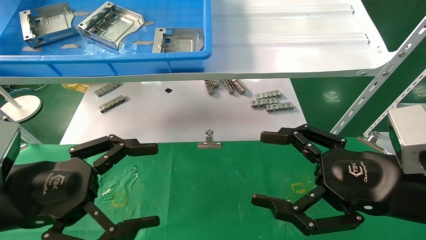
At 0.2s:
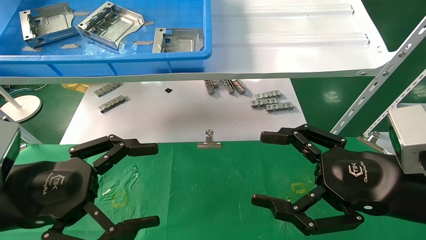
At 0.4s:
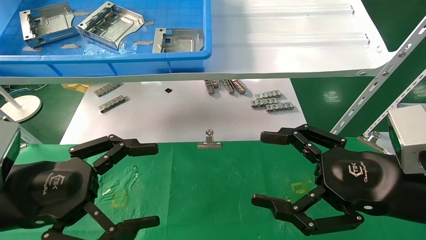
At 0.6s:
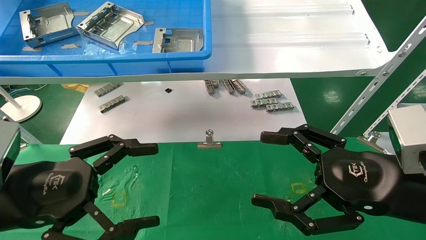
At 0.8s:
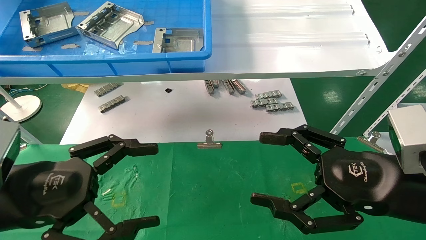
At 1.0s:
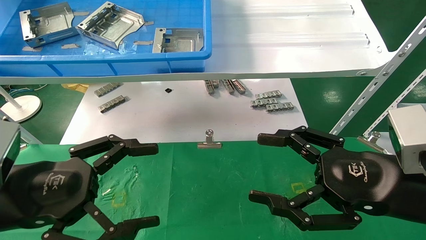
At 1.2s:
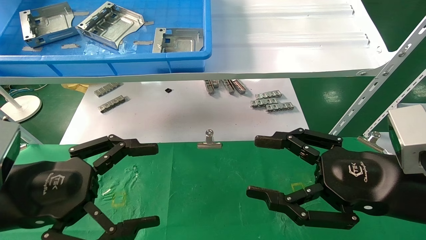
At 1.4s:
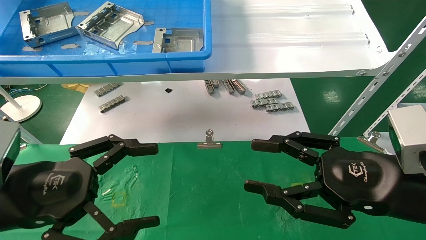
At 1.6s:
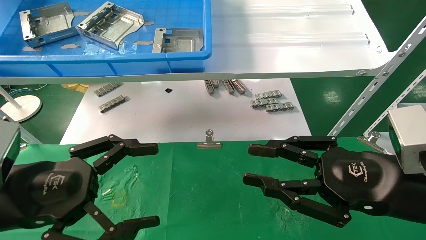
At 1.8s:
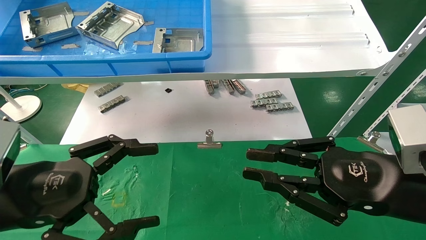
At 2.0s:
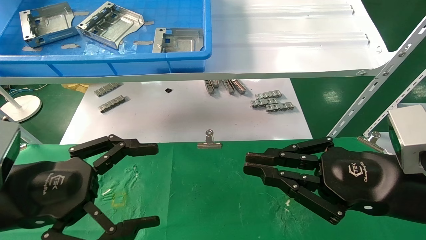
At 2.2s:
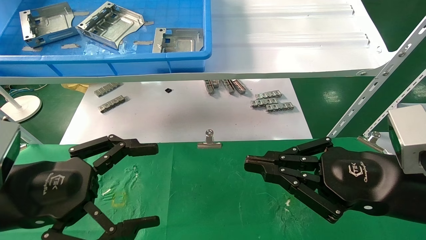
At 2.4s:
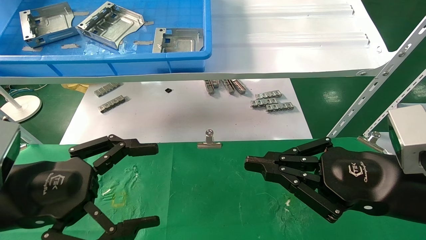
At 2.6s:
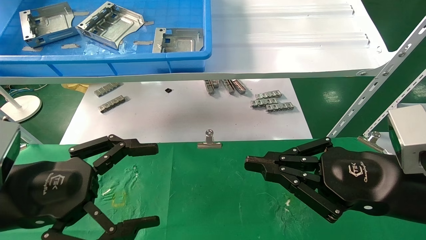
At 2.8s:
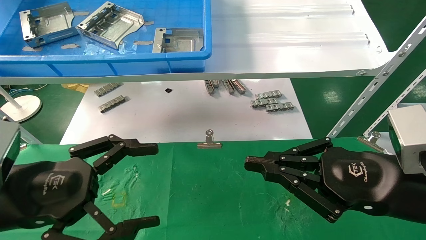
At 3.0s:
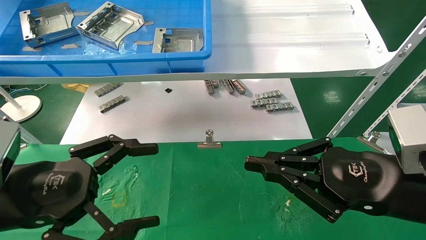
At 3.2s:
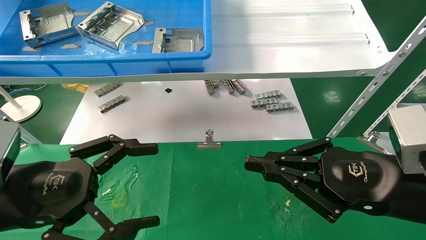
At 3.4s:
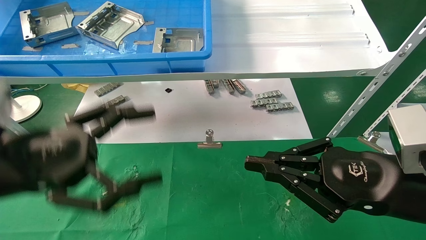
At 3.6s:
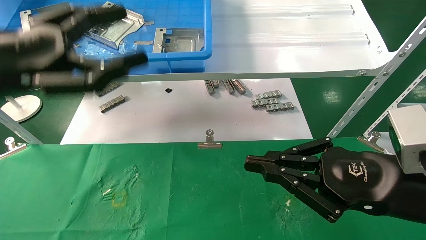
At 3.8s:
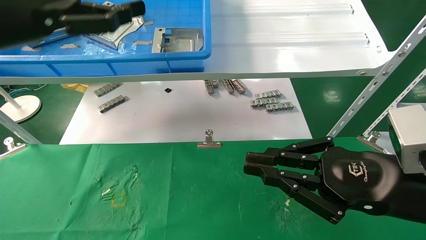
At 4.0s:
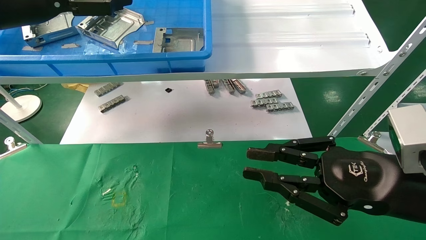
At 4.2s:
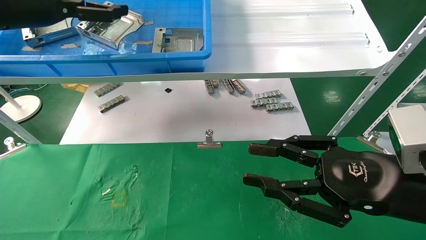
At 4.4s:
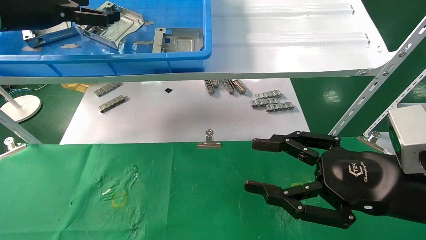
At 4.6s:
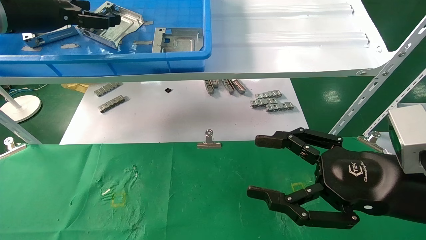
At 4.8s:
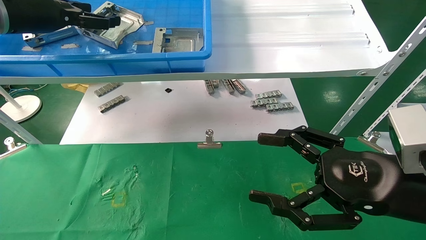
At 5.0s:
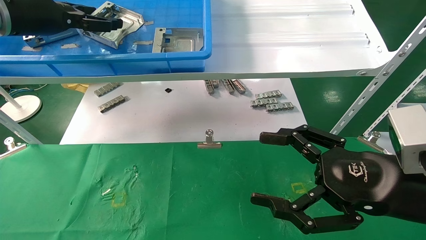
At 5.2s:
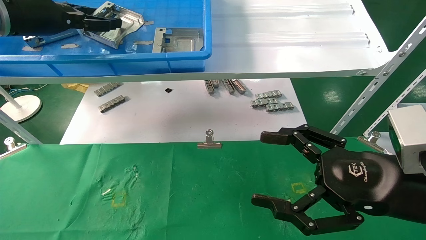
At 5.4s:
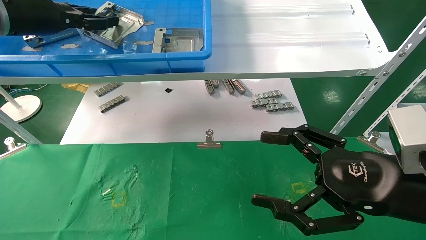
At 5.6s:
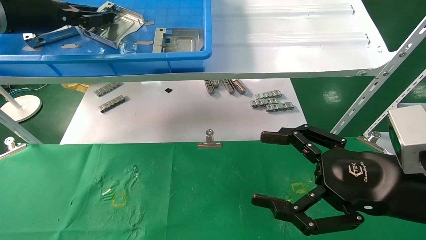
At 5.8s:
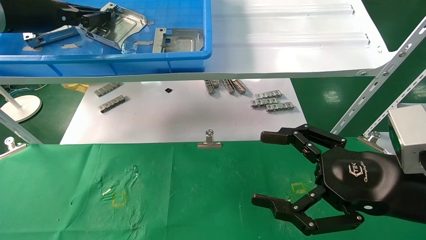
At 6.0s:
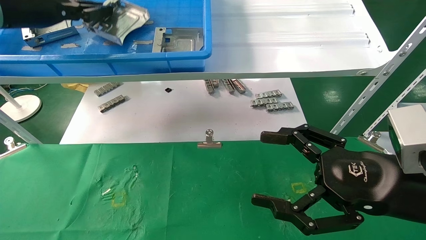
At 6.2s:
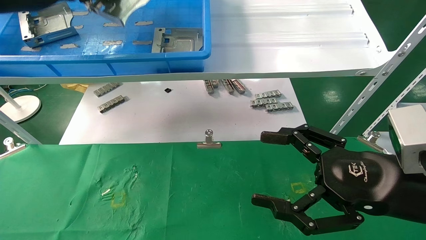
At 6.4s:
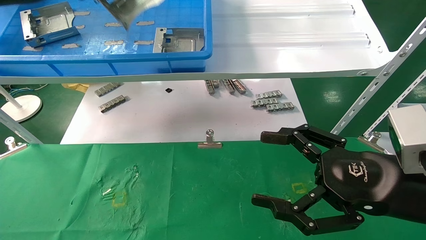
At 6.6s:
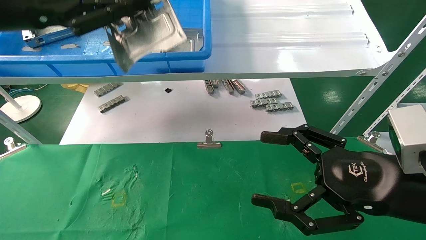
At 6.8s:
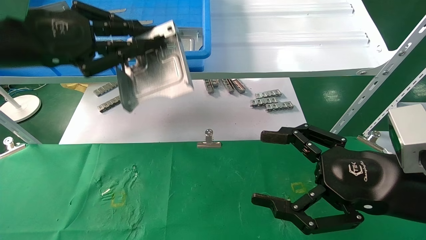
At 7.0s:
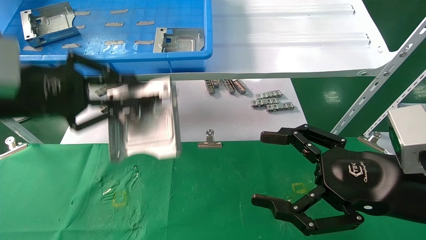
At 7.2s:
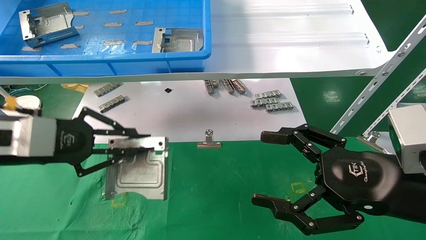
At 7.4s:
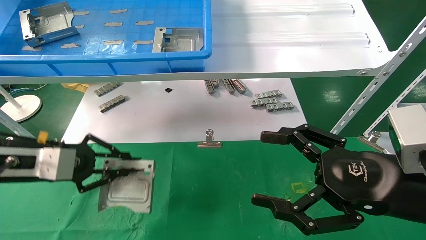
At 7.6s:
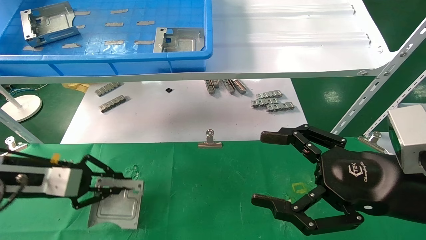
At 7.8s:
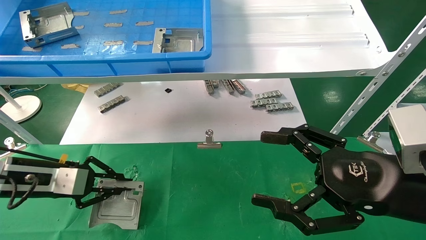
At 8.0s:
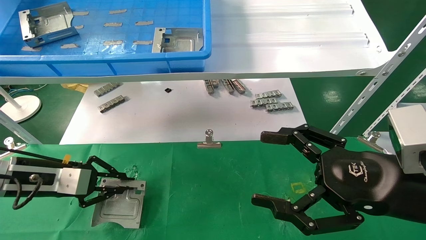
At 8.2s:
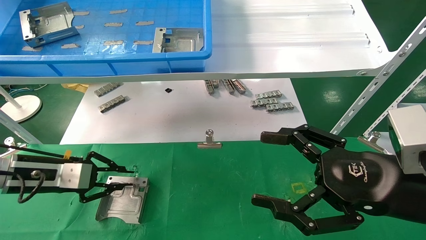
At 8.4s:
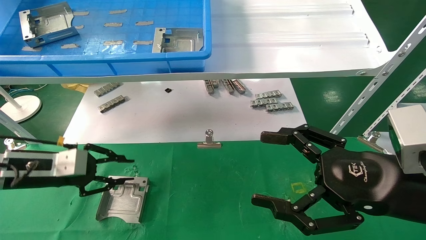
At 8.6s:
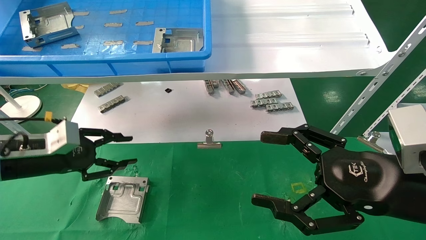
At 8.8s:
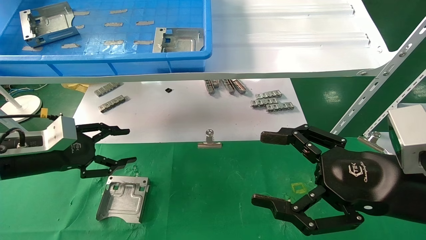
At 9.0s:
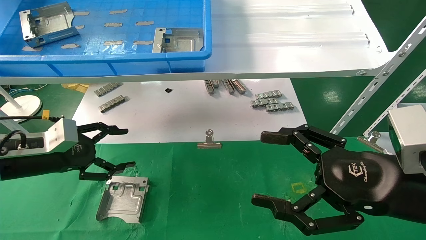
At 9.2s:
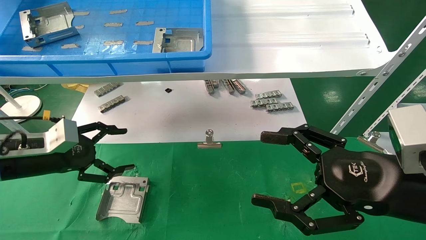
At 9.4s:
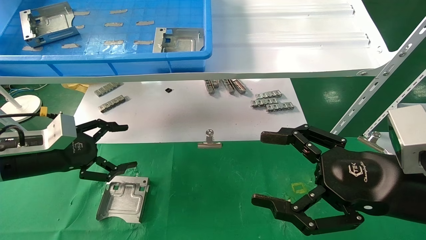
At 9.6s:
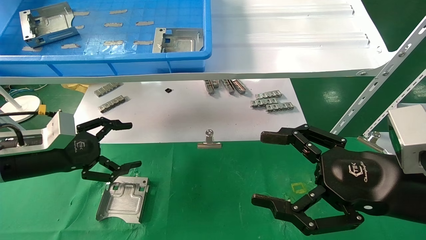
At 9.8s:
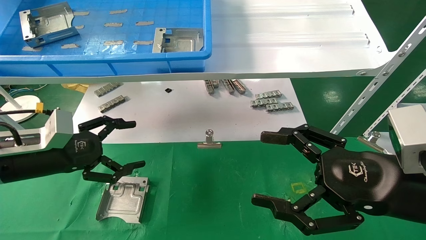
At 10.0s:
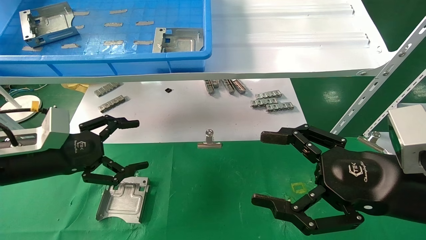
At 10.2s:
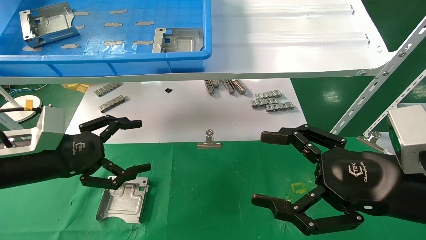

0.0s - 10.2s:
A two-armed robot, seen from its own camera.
Task of the whole recording: use the mechanical arm to pick up the parts and place them on the table.
Step, 3.6s - 6.0s: Pick up the hard drive bracket from the feeding area.
Step, 6.2s - 8.2s: Place the hard drive bracket into the box.
0.0s - 1.4s: The two grippers keep their place.
1.4s - 3.0s: The right gripper closes.
3.0s - 4.4s: The right gripper opens, while the left gripper heads upward and forward, covering about 30 cm.
4.4s - 5.8s: The right gripper opens its fingers; the left gripper closes up.
5.8s - 7.2s: The left gripper is displaced downward and backward by about 20 cm.
7.2s - 8.8s: The left gripper shifts approximately 10 cm downward and forward, and opens.
8.8s - 10.2s: The left gripper shifts by roughly 5 cm, and opens.

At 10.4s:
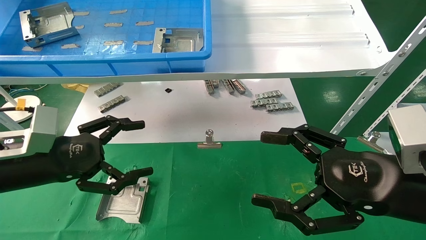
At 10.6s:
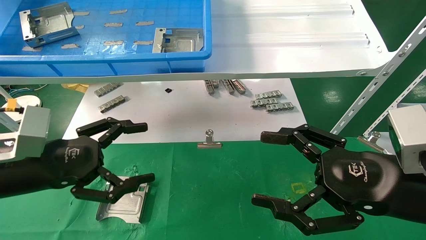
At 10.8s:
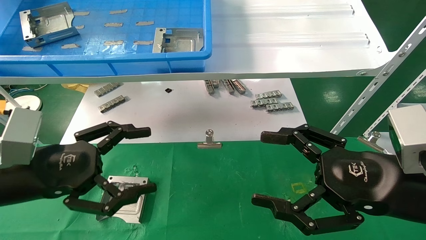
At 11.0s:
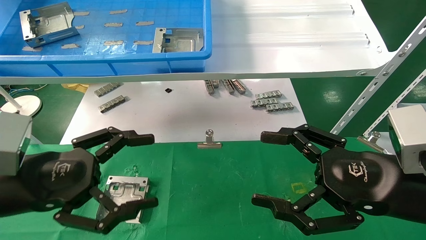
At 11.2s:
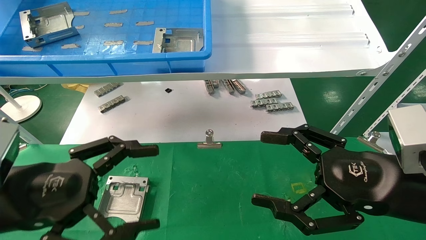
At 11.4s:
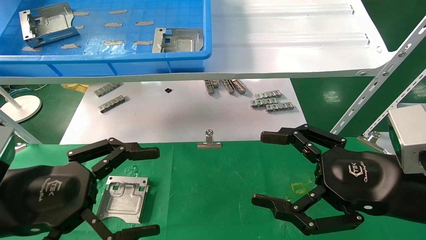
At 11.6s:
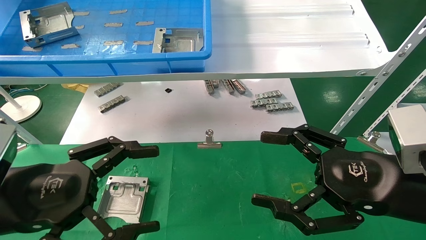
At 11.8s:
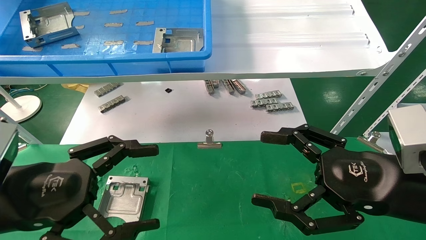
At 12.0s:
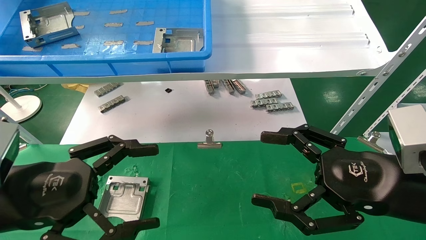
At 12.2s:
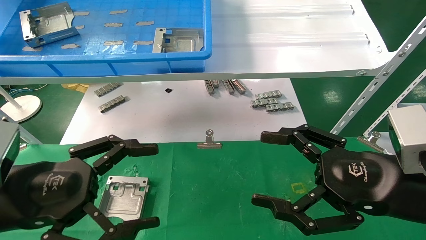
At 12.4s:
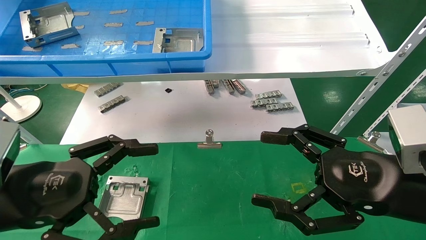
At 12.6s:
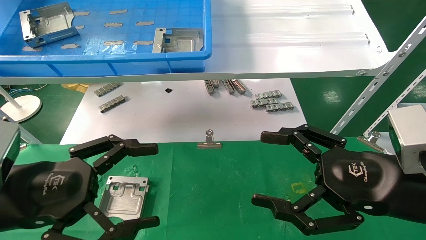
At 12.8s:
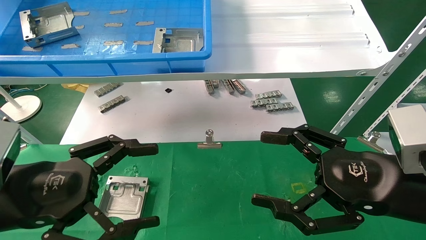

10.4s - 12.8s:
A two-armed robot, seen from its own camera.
Task of the whole recording: use the mechanical arm to pick up the parts and place them on the table.
10.4s - 11.6s: The left gripper moves backward, some 10 cm.
11.6s - 12.8s: The two grippers keep their place.
